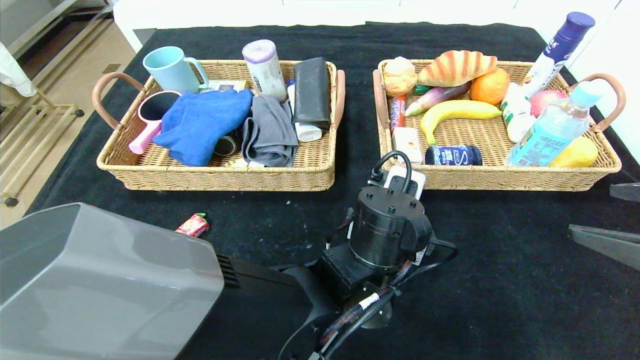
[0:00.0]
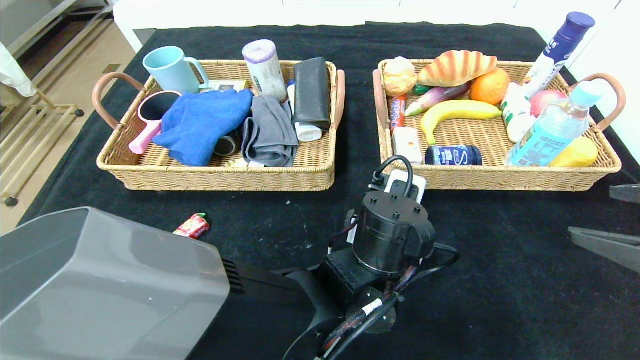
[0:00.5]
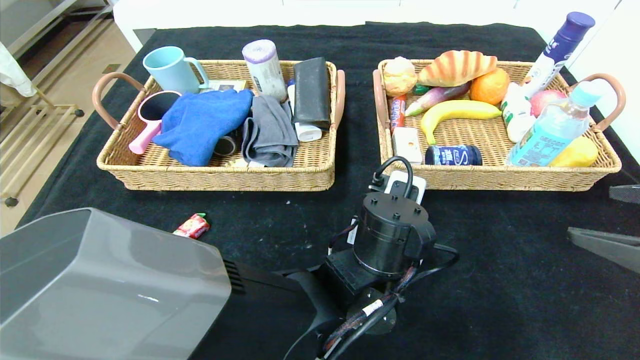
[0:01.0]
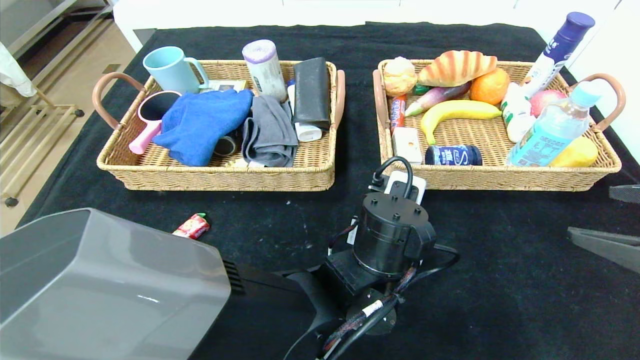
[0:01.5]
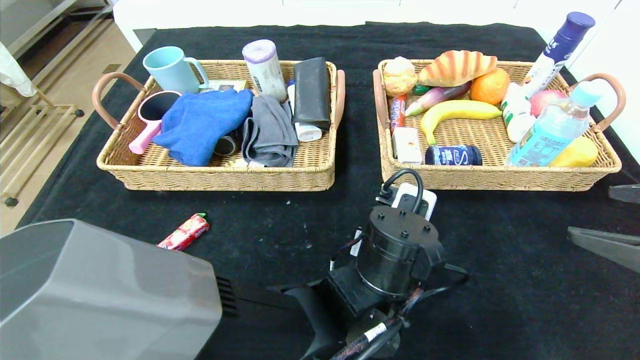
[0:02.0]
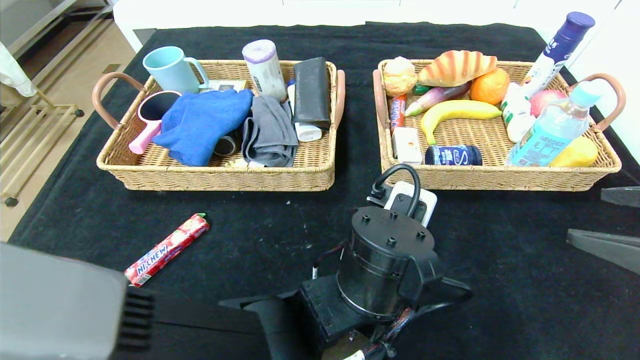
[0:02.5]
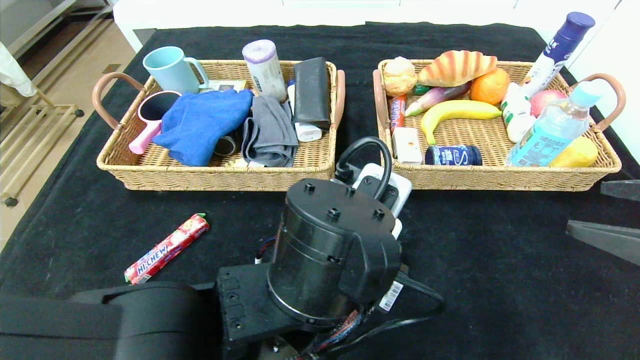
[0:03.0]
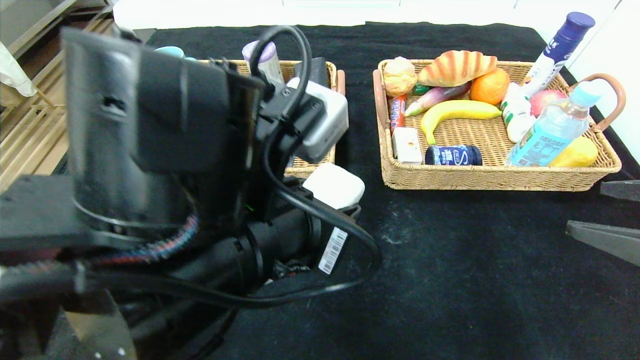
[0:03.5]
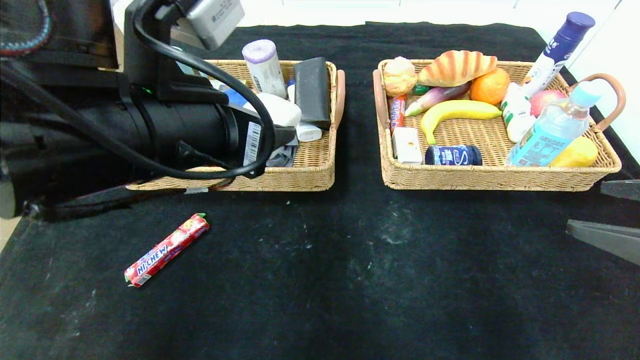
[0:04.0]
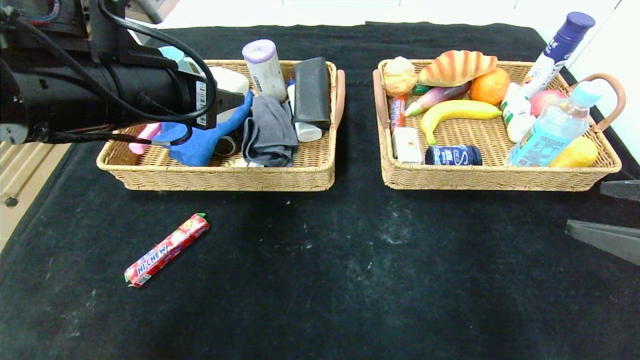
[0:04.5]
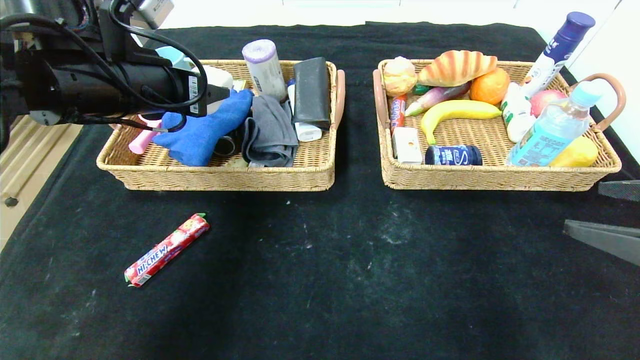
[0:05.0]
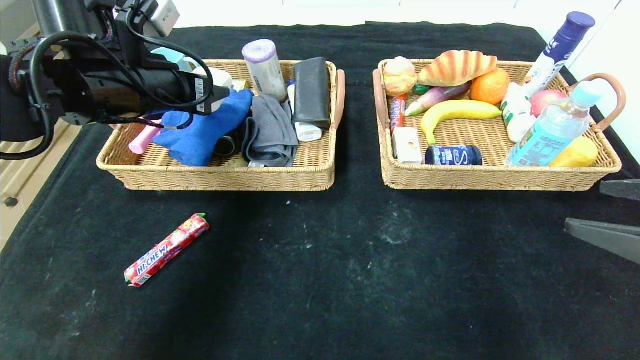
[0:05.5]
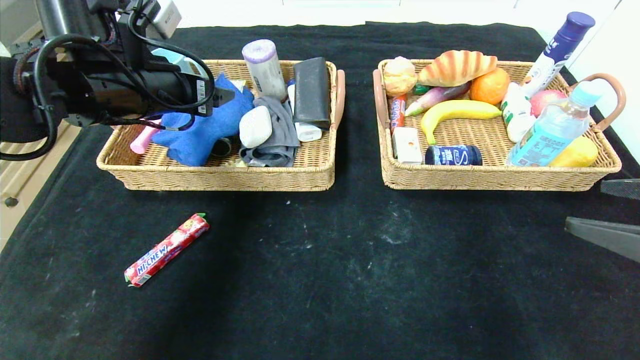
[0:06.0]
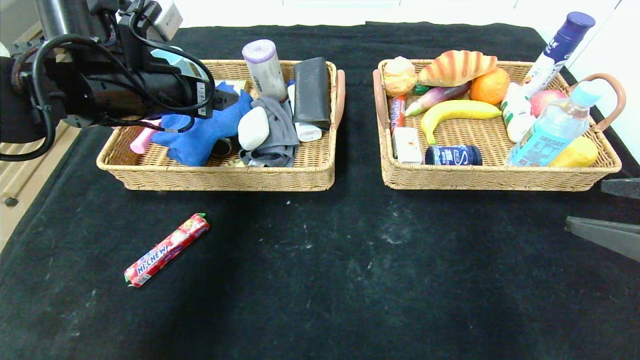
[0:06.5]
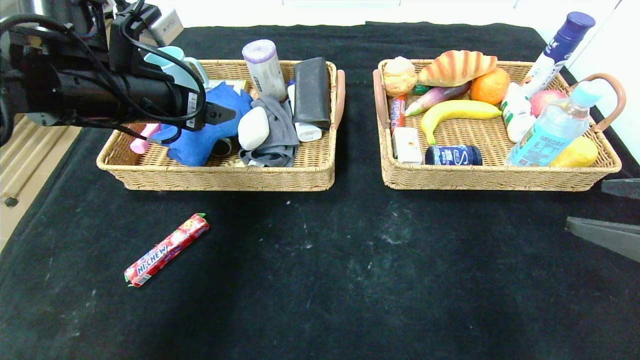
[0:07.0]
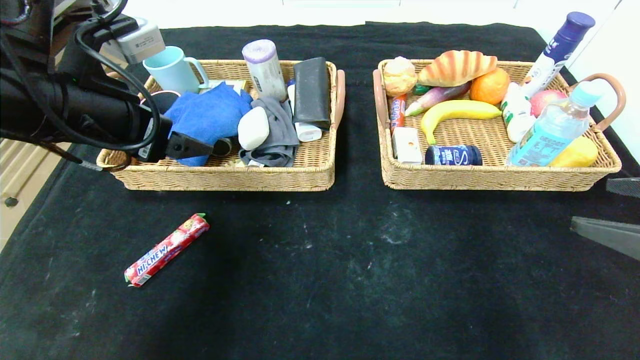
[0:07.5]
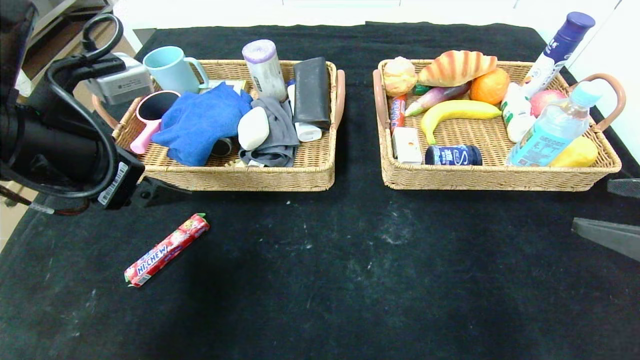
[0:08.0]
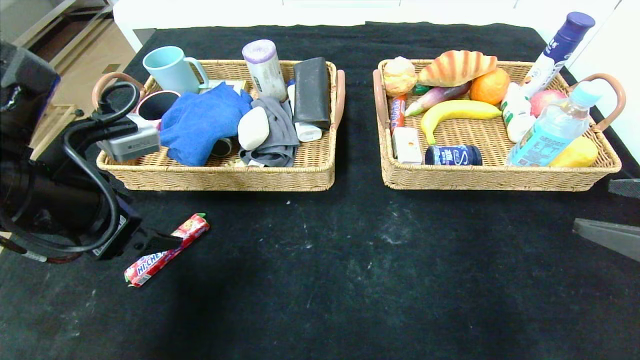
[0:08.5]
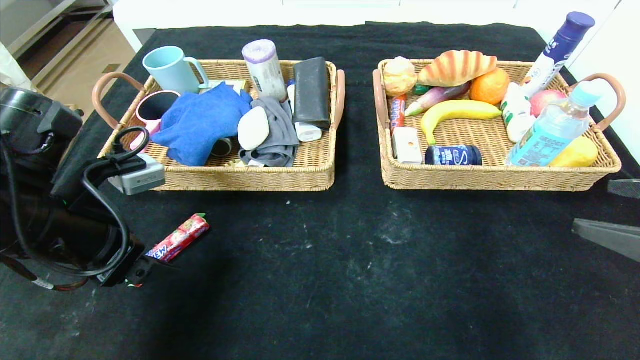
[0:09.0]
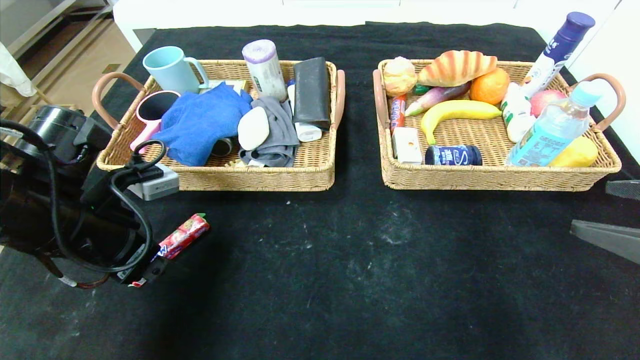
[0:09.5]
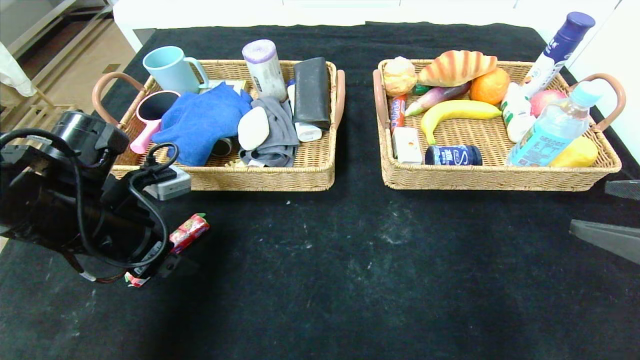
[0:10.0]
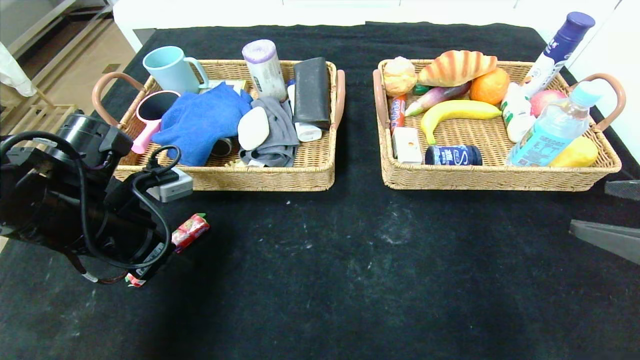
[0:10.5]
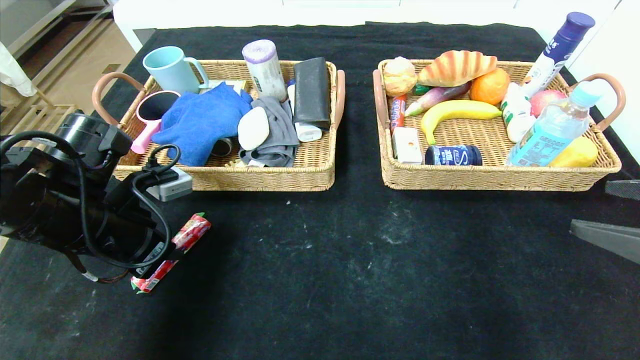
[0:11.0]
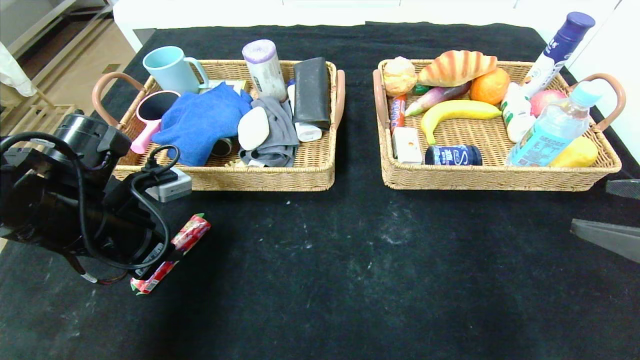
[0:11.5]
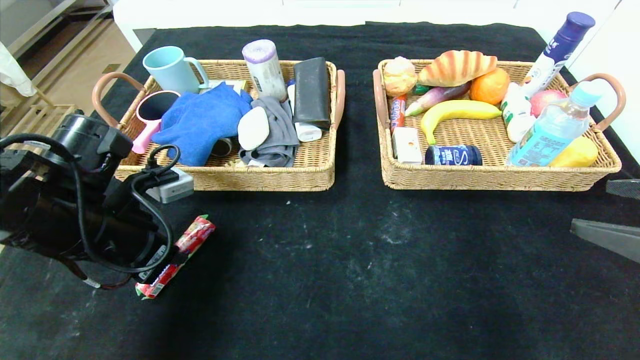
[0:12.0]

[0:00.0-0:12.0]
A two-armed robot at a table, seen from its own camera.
Step, 0:00.0 to 0:06.5: Grasp the soap and put it in the left basket.
0:00.0 to 0:02.0: The left gripper closes.
0:02.0 to 0:04.0: The left gripper shifts roughly 25 cm to the left and upward.
0:04.0 to 0:06.0: The left gripper shifts some 15 cm forward and to the left.
0:06.0 to 0:08.0: The left gripper goes approximately 10 cm backward.
0:08.0 to 0:10.0: The left gripper goes about 10 cm downward.
0:10.0 to 0:12.0: The left gripper closes.

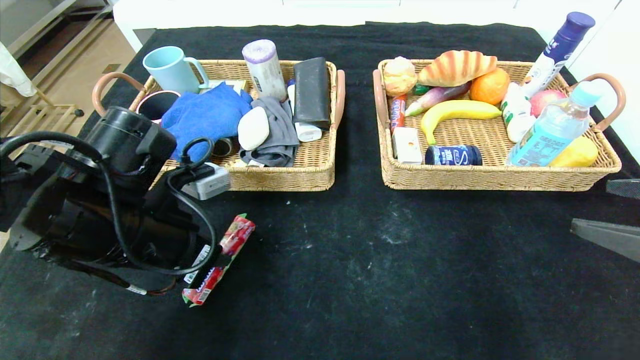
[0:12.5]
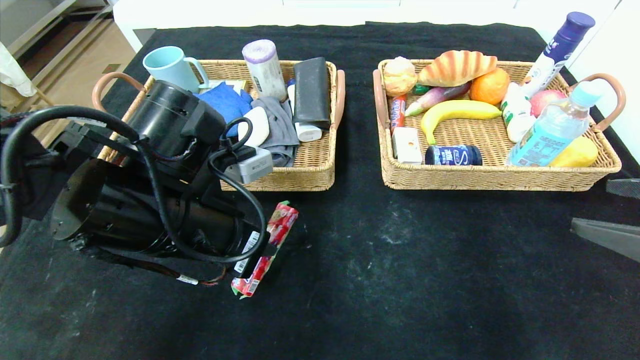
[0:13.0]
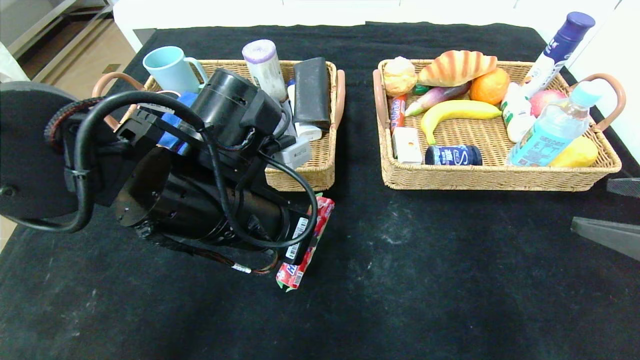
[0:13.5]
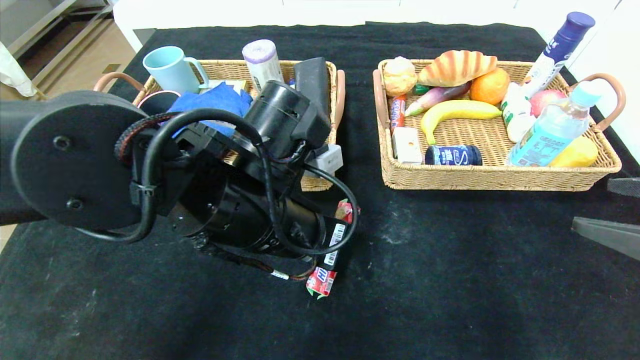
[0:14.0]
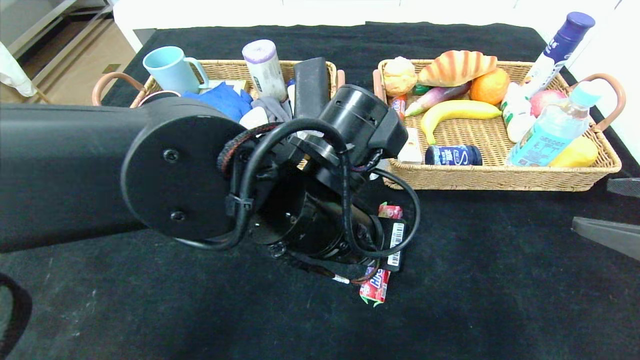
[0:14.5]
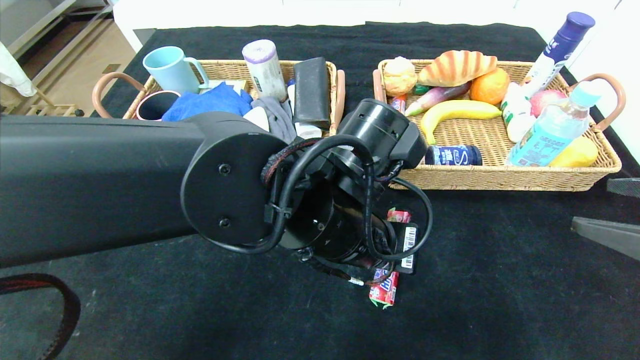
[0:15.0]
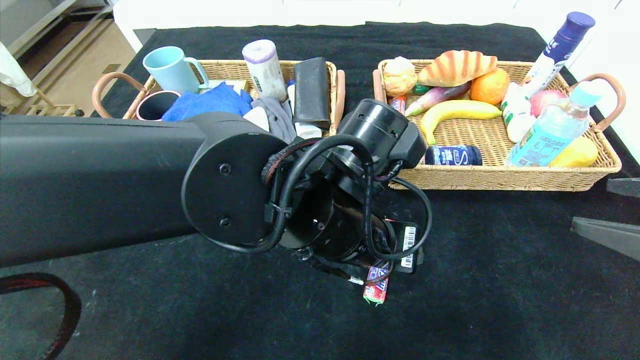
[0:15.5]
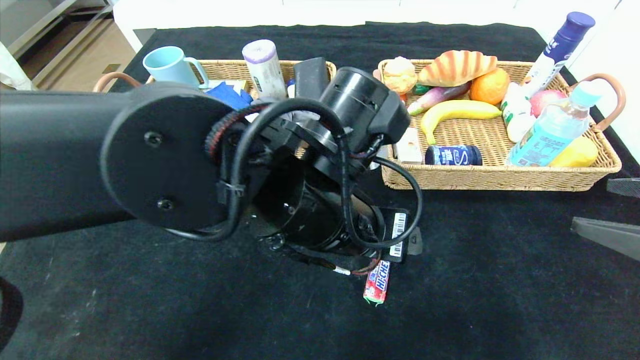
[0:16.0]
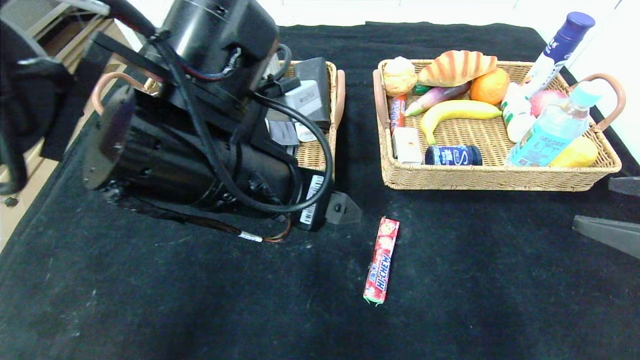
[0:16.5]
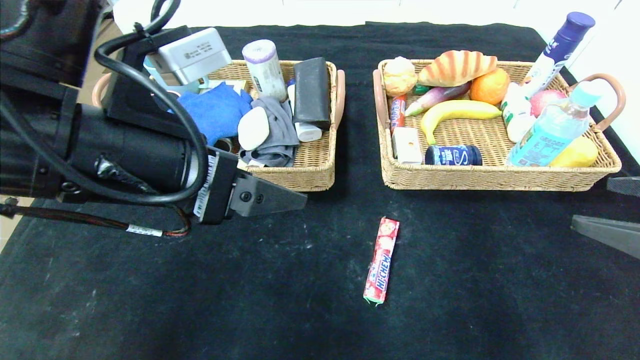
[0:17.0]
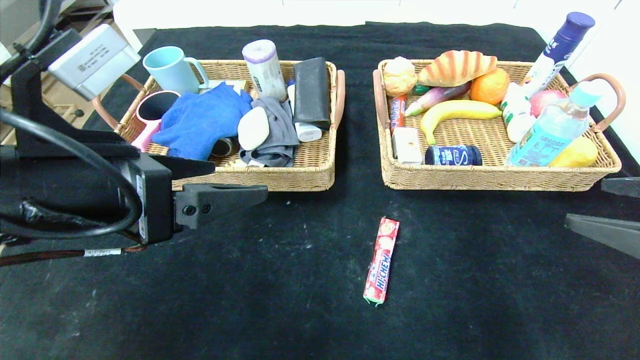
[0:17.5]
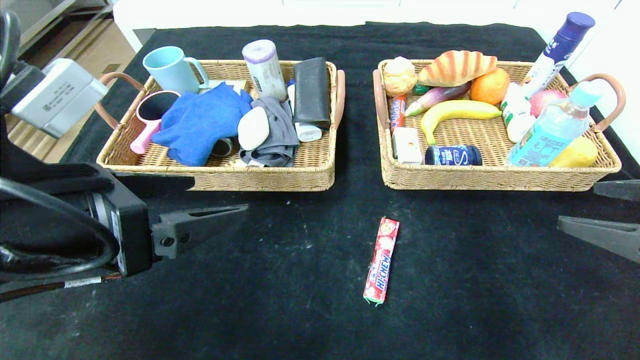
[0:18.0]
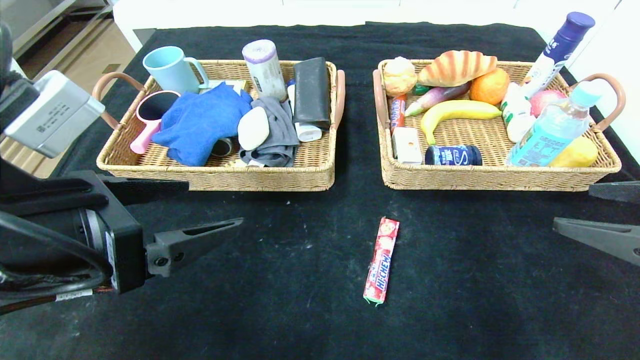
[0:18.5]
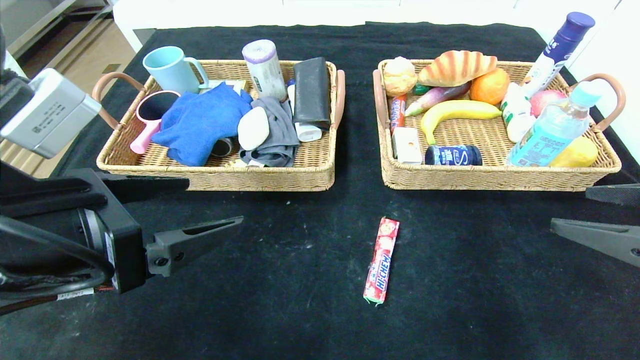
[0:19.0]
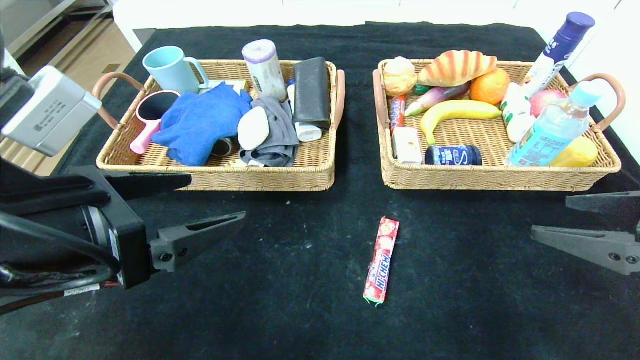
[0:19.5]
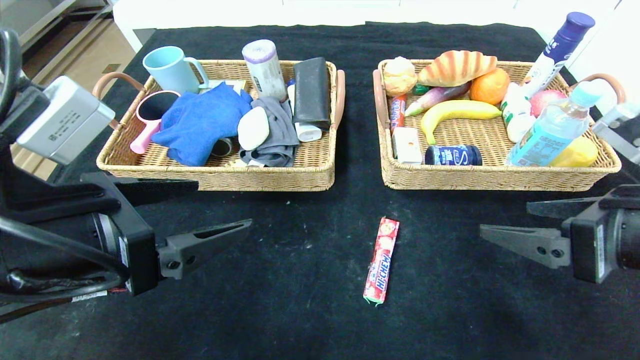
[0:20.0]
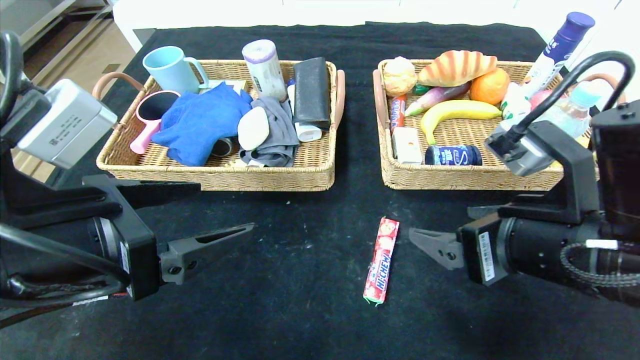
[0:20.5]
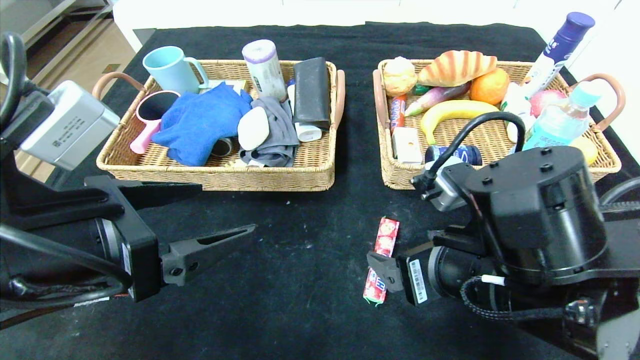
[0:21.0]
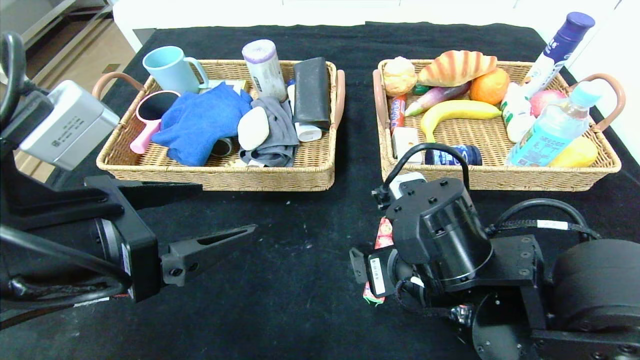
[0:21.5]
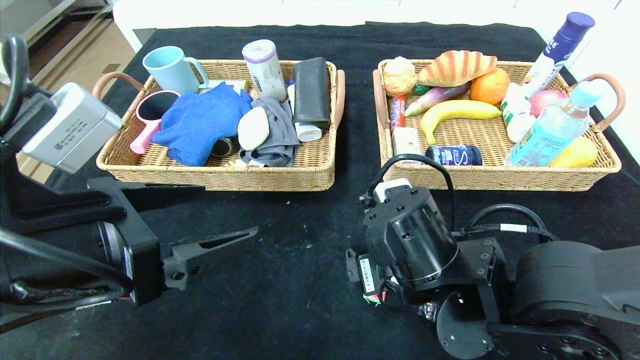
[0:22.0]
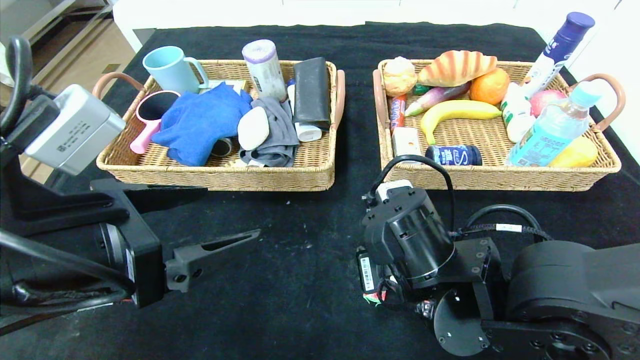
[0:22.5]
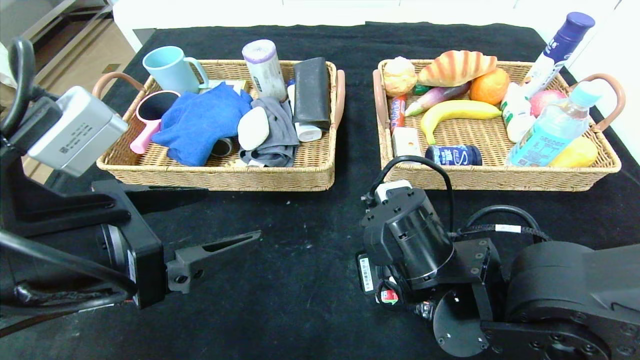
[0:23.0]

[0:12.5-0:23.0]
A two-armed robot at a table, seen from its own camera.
Step, 0:12.5 to 0:15.5: Place the fruit fudge in the center of the table.
0:12.5 to 0:14.5: The left gripper goes roughly 20 cm to the right.
0:14.5 to 0:16.5: The left gripper travels to the left and upward by roughly 10 cm, and opens.
0:16.5 to 0:19.0: The left gripper is displaced to the left and backward by some 15 cm.
0:19.0 to 0:21.0: The right gripper shifts some 20 cm to the left.
0:21.0 to 0:23.0: The right gripper changes place by about 5 cm, and closes its fingers.
